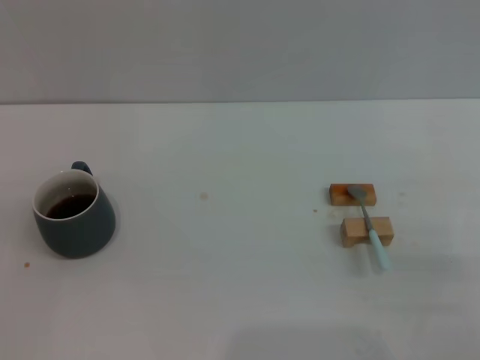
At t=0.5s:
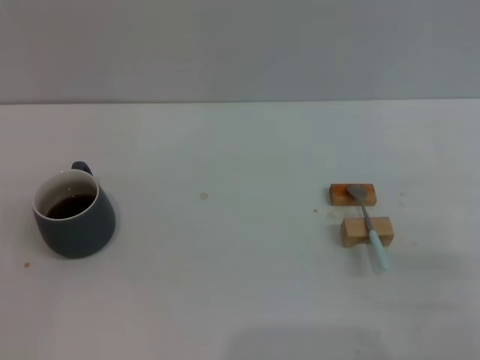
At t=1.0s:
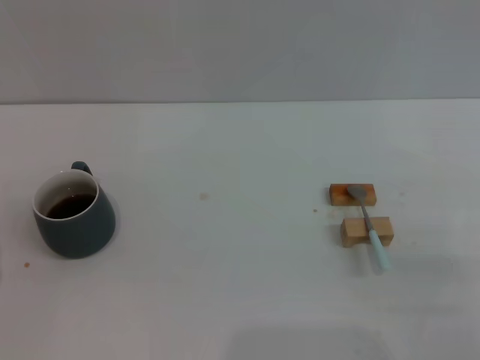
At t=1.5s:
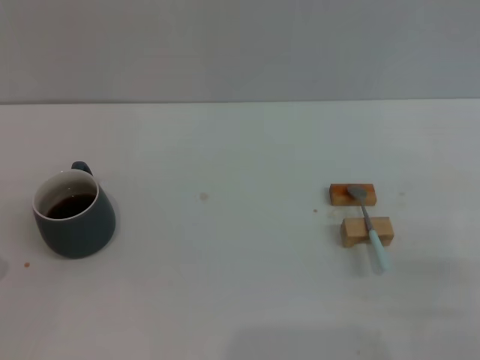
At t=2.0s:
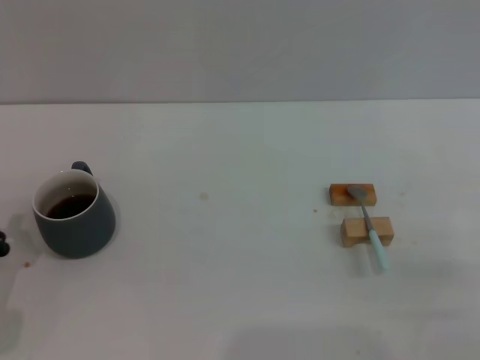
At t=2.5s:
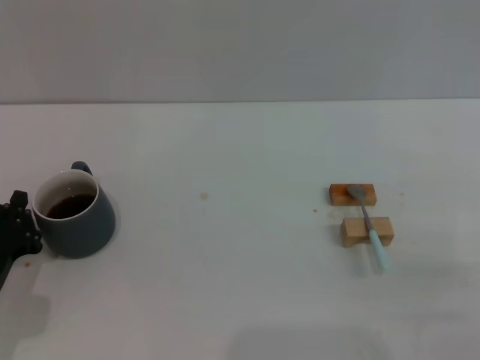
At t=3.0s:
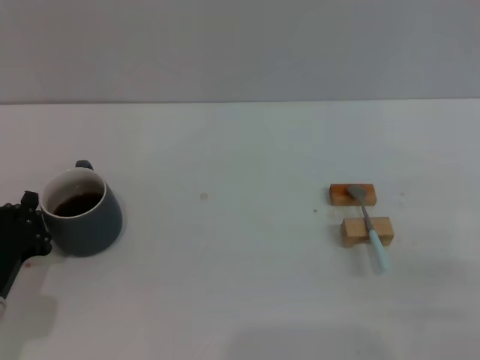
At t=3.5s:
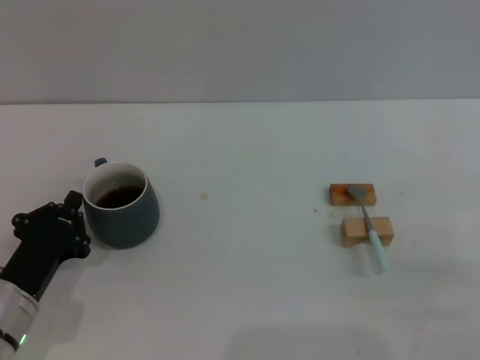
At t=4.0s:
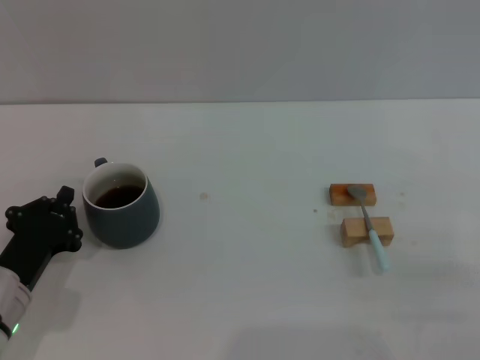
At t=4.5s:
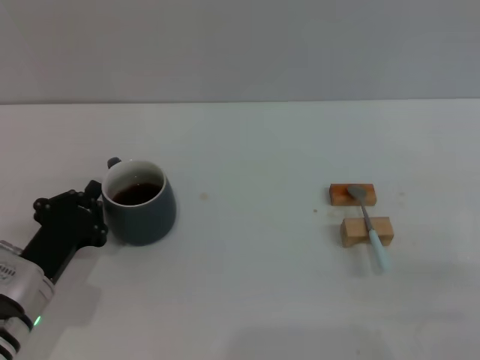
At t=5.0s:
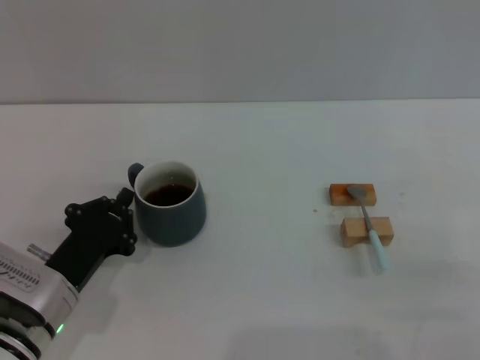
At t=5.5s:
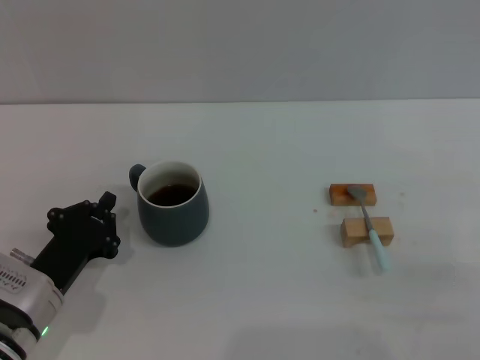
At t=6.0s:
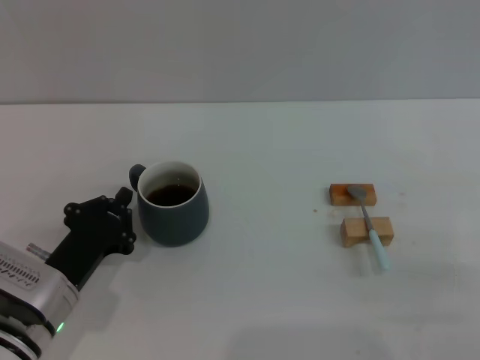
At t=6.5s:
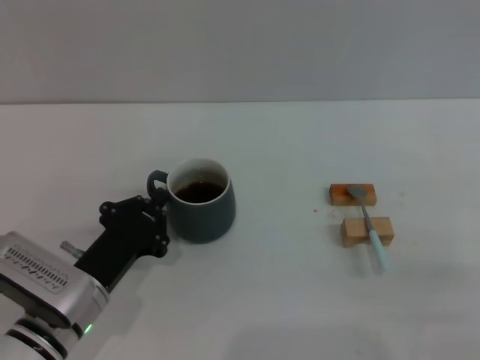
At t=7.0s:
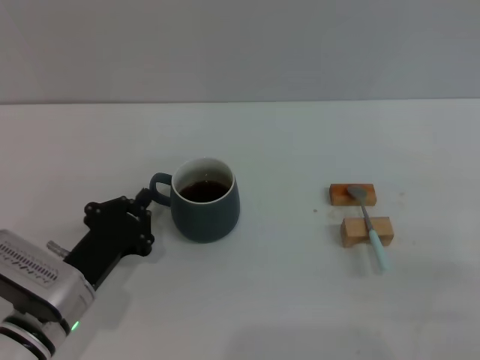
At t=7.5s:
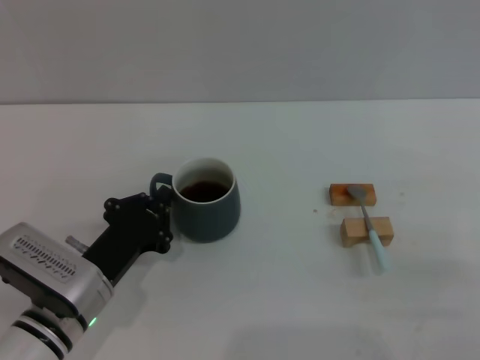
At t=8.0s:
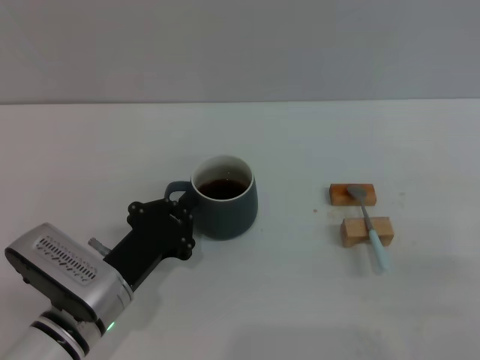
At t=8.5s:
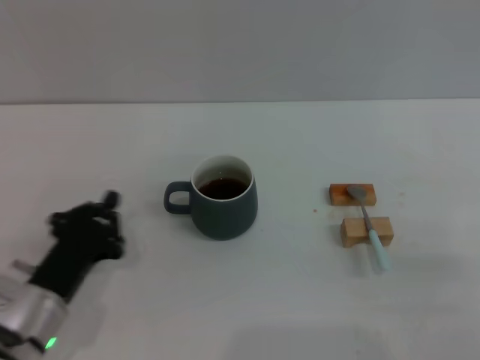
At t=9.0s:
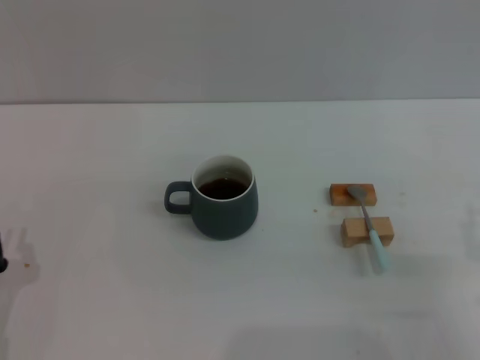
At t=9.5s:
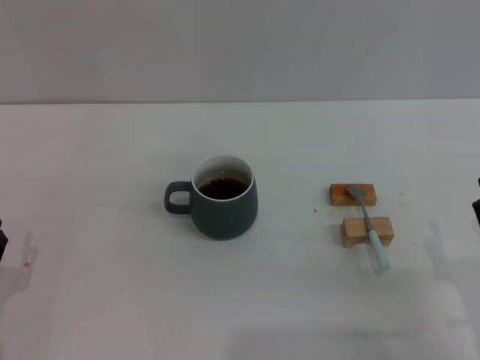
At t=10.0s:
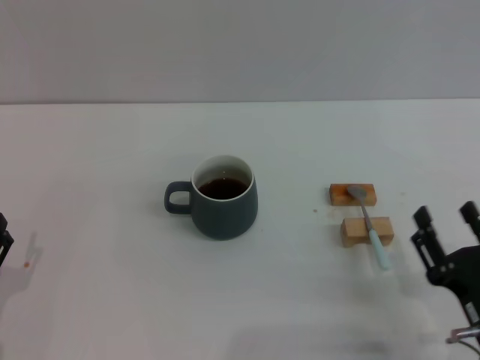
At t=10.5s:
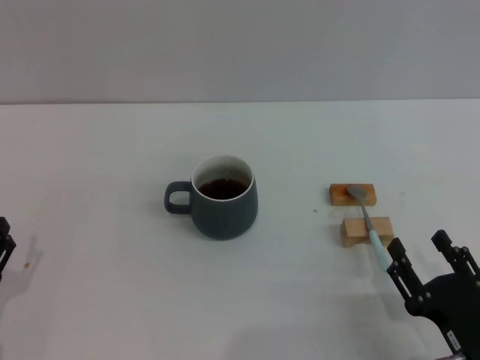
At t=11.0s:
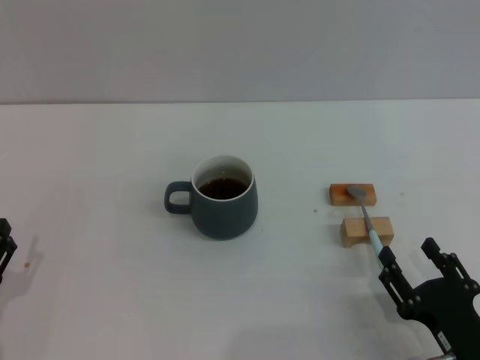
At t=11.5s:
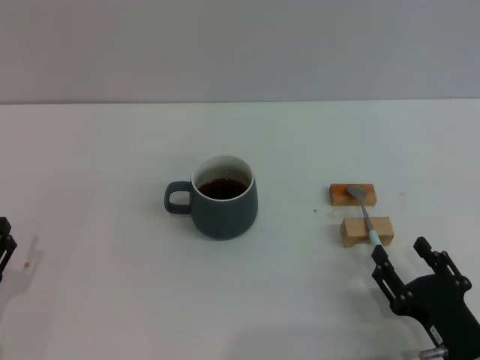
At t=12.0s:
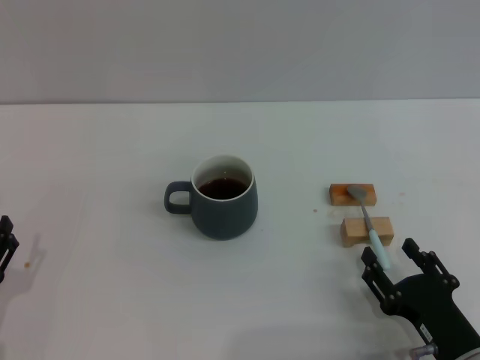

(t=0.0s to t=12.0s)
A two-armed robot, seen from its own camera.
Task of the whole recording: Move the grey cup to the center, lift the blue spoon, stir it three times in the cup, and put the spoon into the cup.
Step, t=0.0s - t=8.0s: Move the cup with coffee to the center of view with the left gripper.
t=2.0s - t=4.0s: The left gripper ends up about 5 cm from where it was.
t=4.0s - t=6.0s: The grippers make only small movements.
t=6.0s - t=8.0s: There are only small adjustments of the grippers.
t=8.0s - t=10.0s: The left gripper travels to the left and backward by approximately 15 cm, and opens. The right gripper goes approximately 5 cm to the left.
t=10.0s - t=12.0s: The grippers make only small movements.

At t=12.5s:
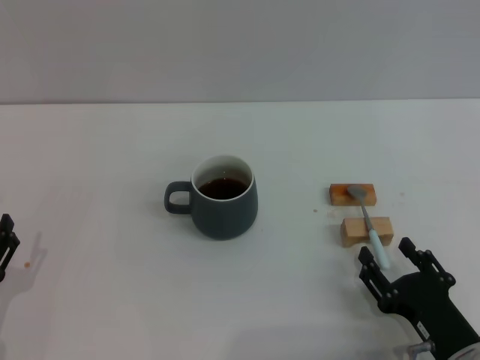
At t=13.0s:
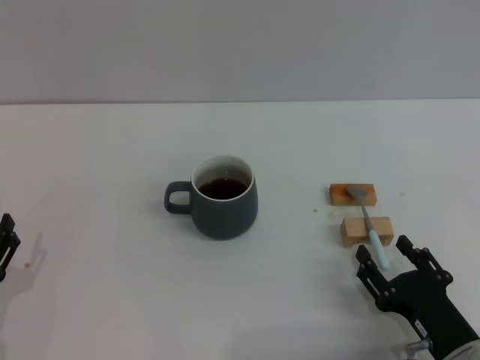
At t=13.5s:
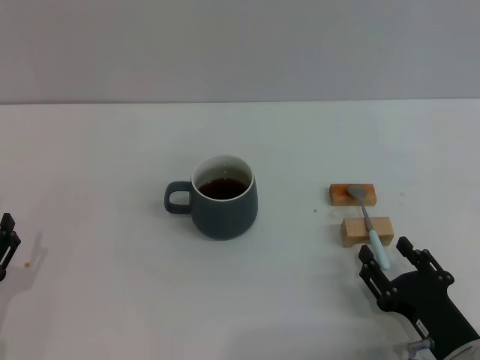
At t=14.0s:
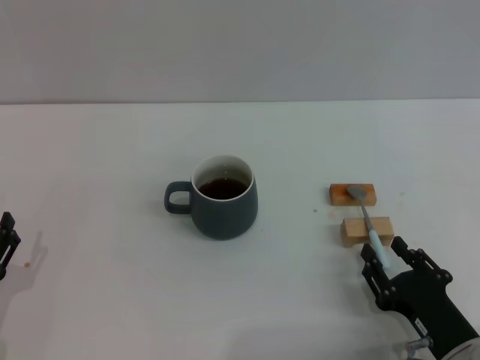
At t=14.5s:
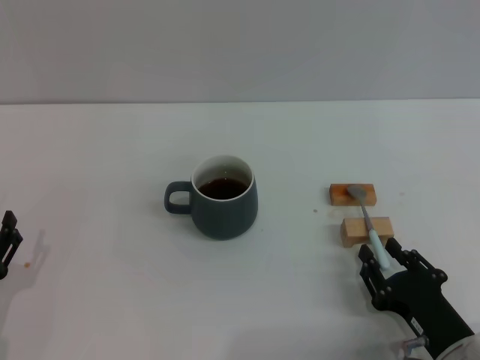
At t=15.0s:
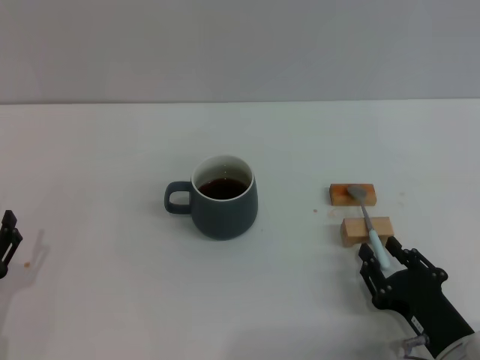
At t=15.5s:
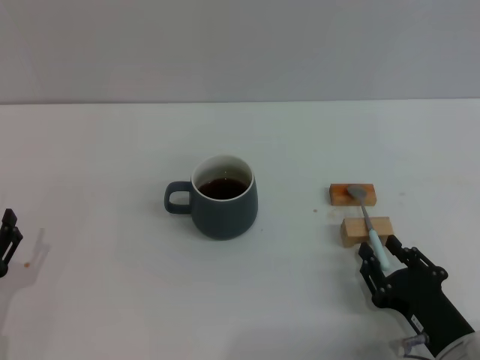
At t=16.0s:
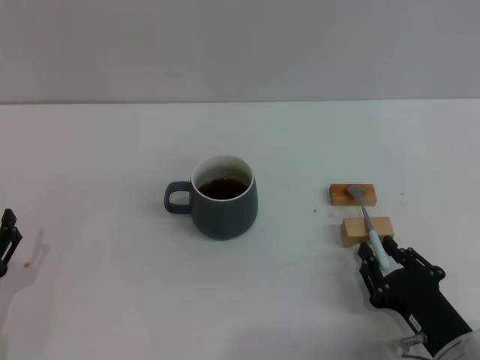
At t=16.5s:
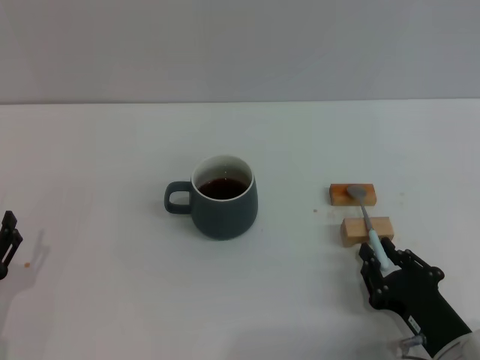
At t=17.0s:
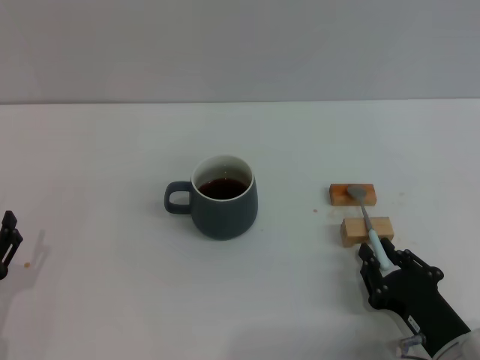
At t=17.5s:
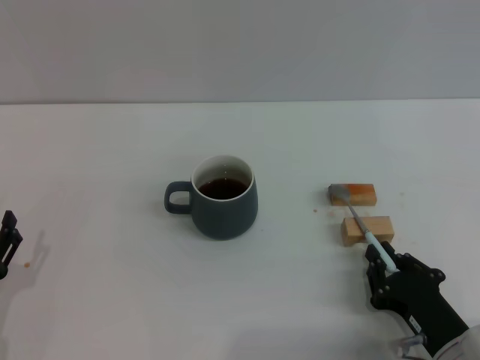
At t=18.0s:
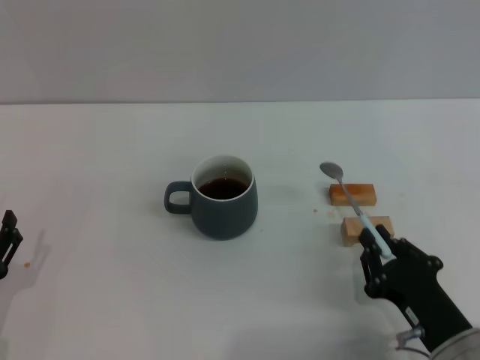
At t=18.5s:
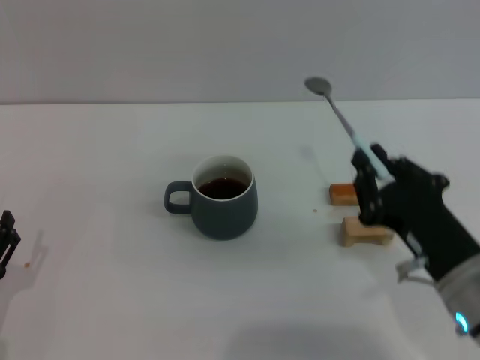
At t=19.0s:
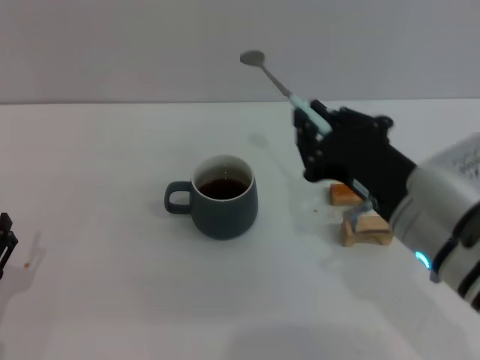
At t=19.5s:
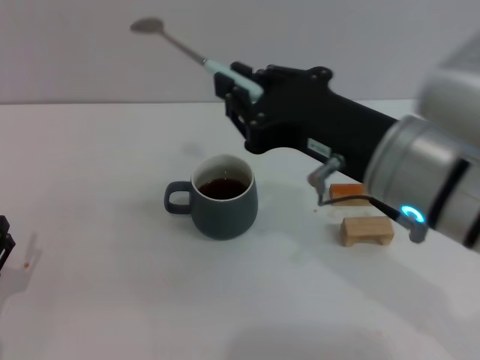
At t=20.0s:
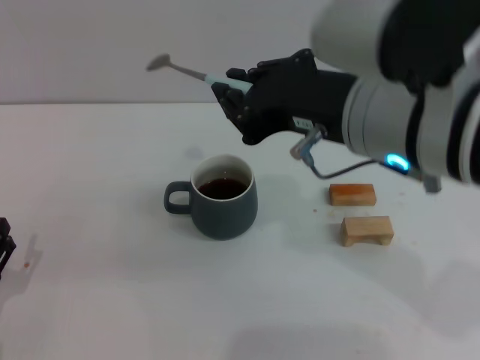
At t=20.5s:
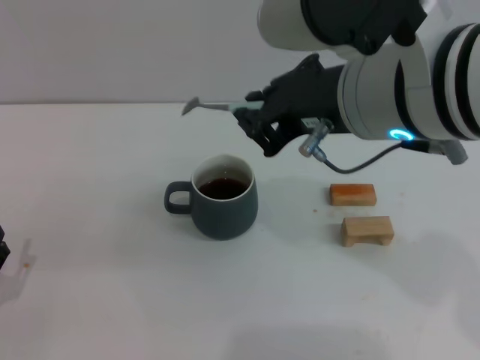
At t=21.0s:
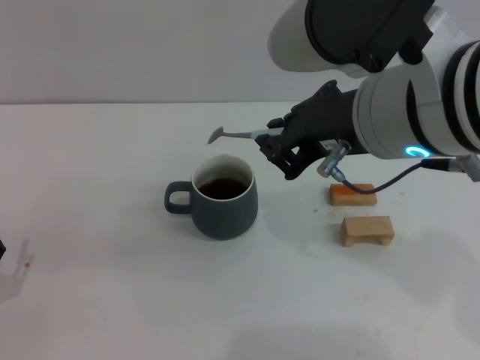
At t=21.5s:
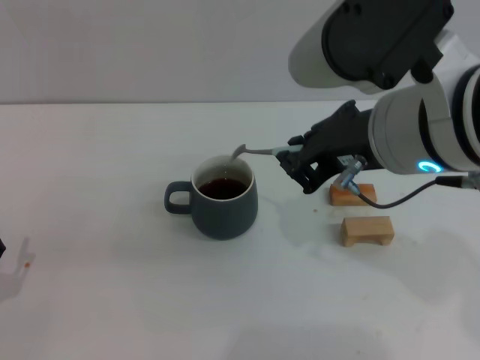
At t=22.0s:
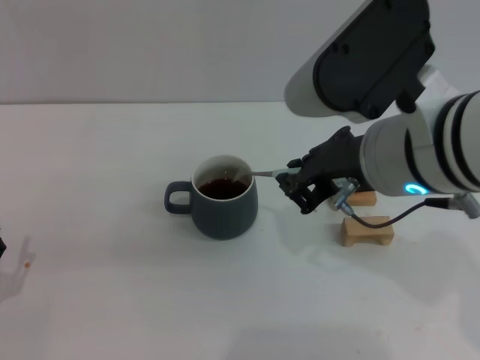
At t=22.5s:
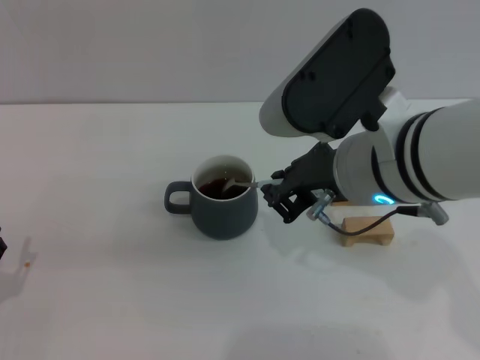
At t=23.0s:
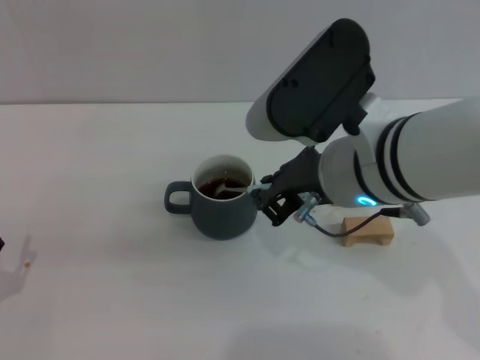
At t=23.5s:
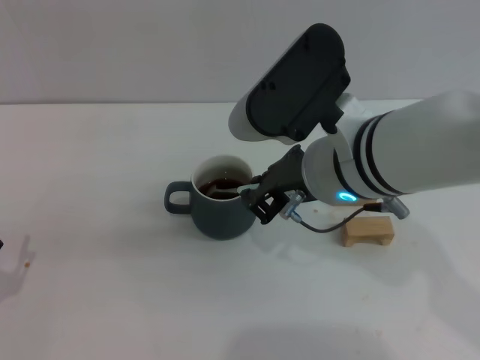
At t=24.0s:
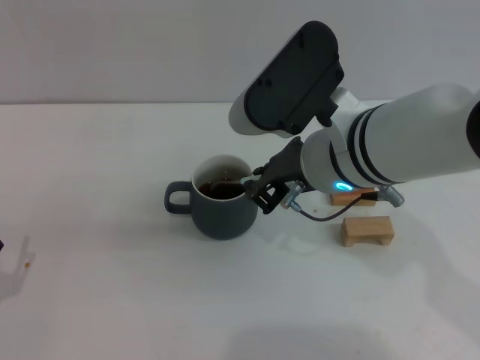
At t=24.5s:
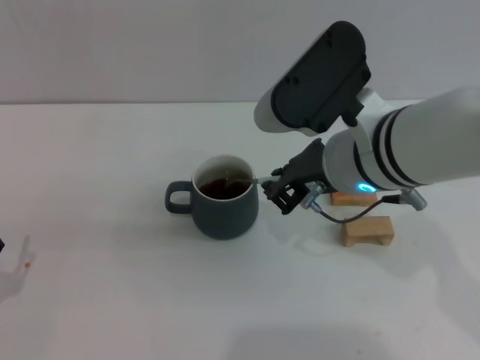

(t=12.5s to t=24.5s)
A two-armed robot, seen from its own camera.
Task of the whole recording: Move the grey cup to the center, lift the blue spoon, stir it three times in the cup, and put the spoon into the cup.
Step, t=12.5s - t=18.0s: Pick up the spoon with the right gripper.
t=12.5s - t=14.5s: The right gripper closes its fingers.
t=14.5s - t=16.5s: The two grippers keep their place.
t=16.5s - t=18.5s: The right gripper heads upward, covering about 10 cm.
t=18.5s - t=20.5s: The right gripper goes approximately 25 cm upward and to the left.
t=20.5s - t=22.5s: The right gripper is displaced downward by about 5 cm.
t=22.5s - t=24.5s: The grippers make only small movements.

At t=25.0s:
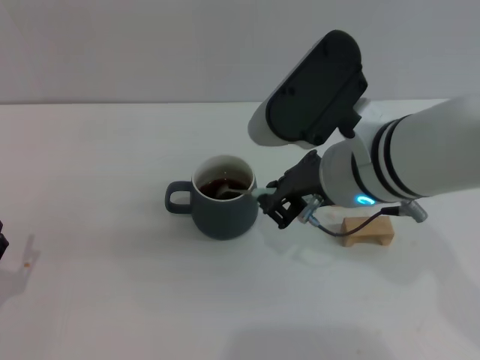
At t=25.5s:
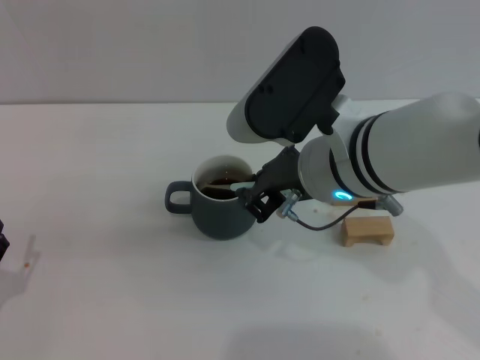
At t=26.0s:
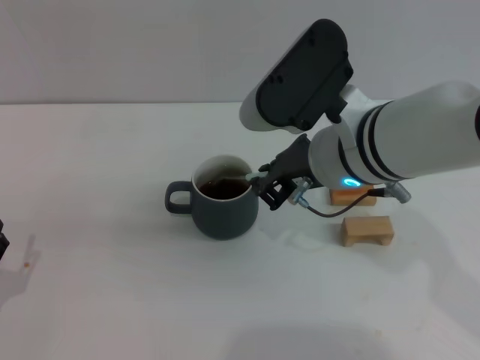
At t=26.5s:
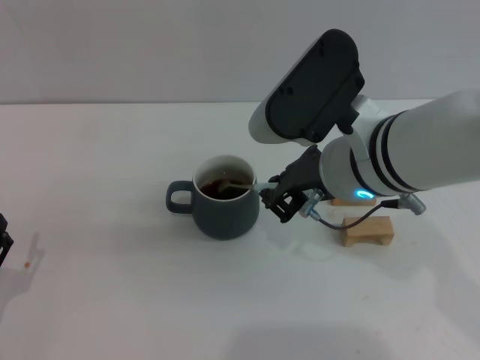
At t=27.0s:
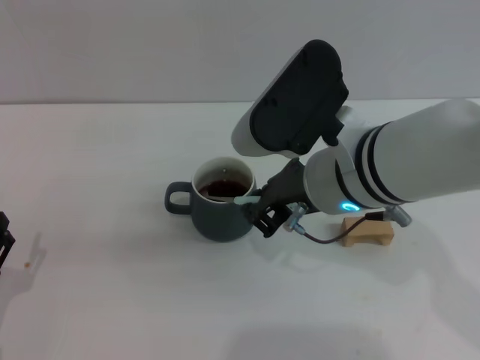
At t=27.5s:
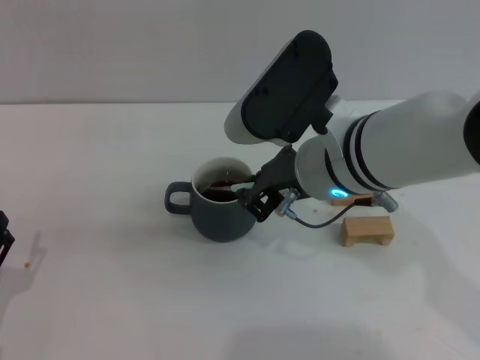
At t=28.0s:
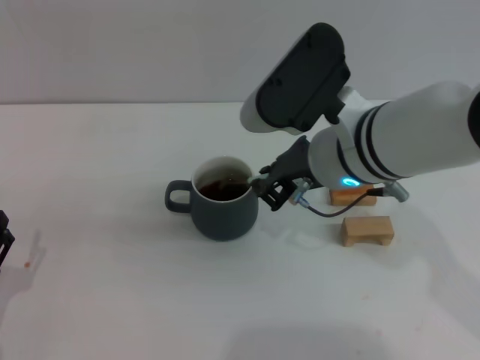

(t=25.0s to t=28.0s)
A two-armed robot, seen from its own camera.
Task of the whole recording: Move the grey cup to the center, lift the blue spoon, stir it three times in the cup, and put the spoon into the cup.
t=25.0s - t=28.0s: The grippers move only a little.
